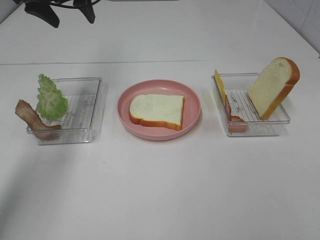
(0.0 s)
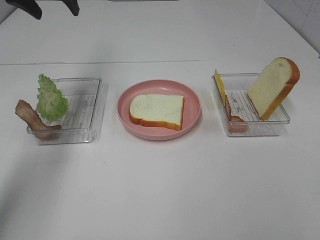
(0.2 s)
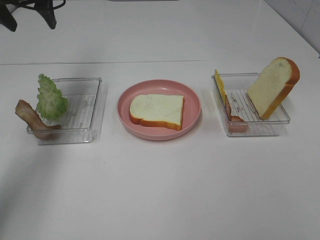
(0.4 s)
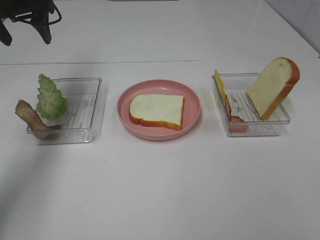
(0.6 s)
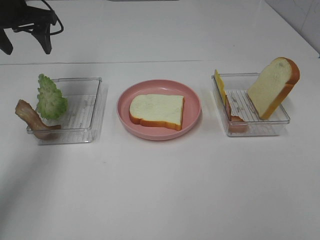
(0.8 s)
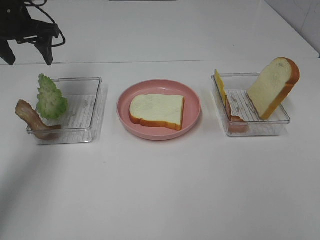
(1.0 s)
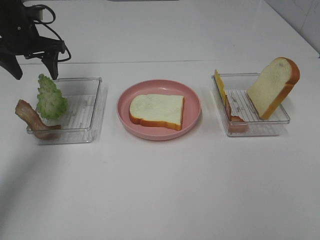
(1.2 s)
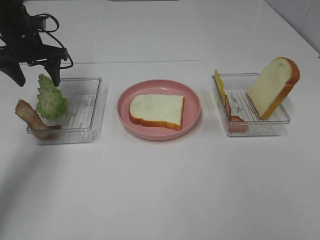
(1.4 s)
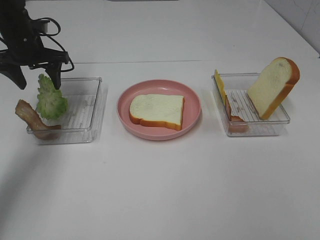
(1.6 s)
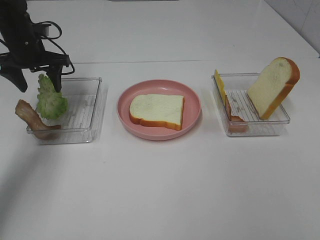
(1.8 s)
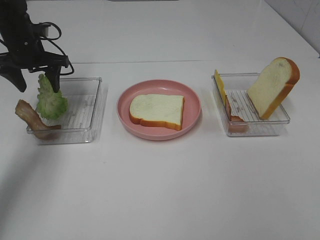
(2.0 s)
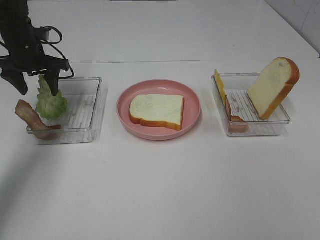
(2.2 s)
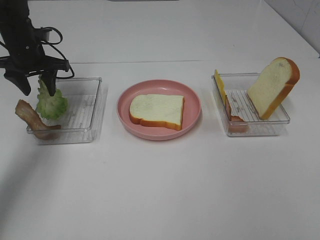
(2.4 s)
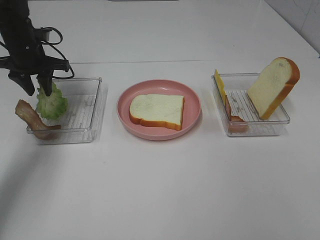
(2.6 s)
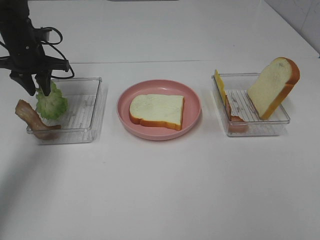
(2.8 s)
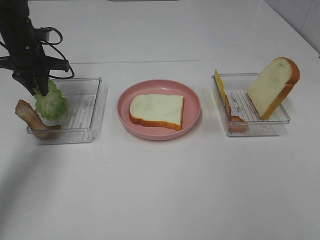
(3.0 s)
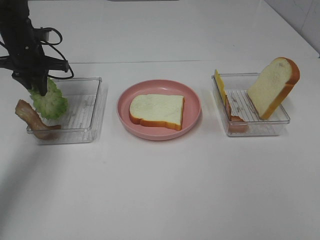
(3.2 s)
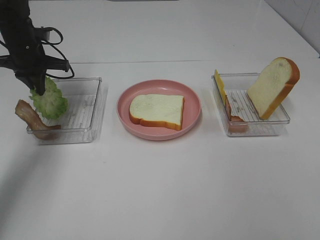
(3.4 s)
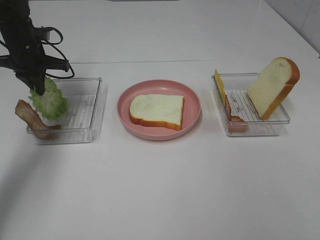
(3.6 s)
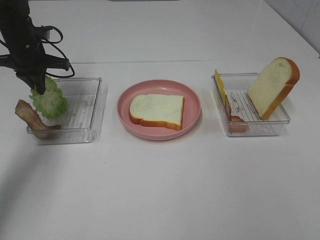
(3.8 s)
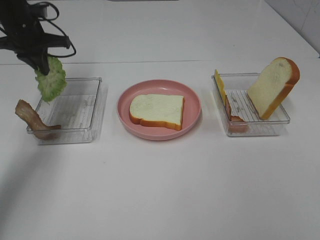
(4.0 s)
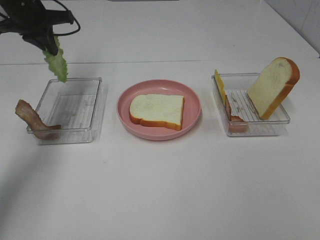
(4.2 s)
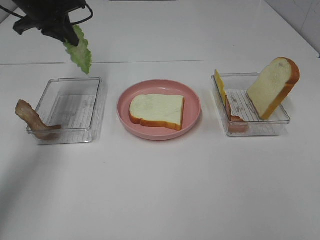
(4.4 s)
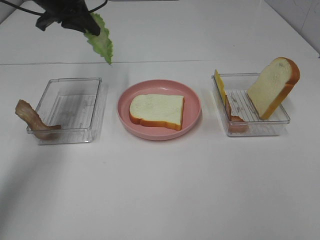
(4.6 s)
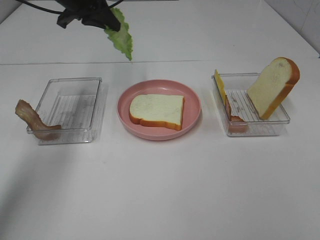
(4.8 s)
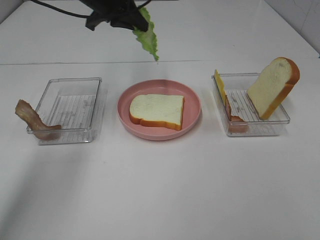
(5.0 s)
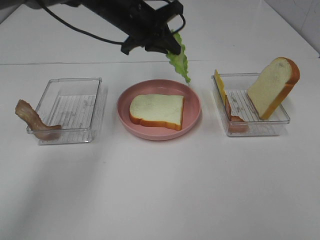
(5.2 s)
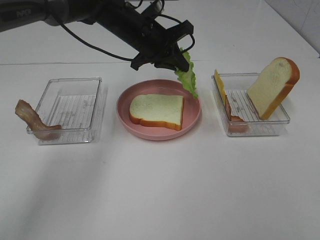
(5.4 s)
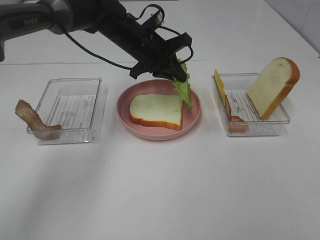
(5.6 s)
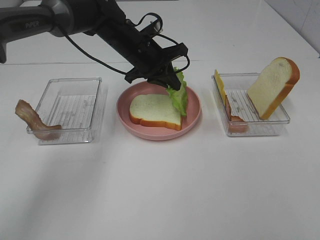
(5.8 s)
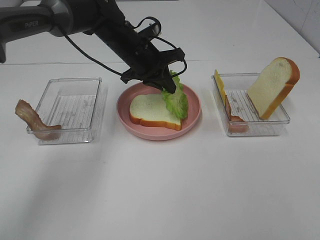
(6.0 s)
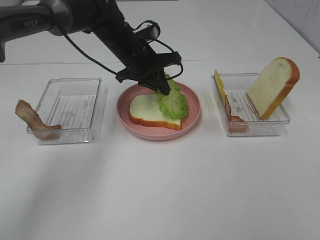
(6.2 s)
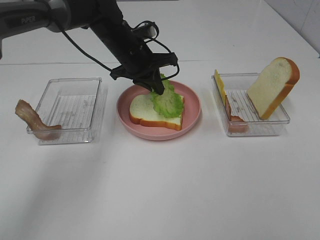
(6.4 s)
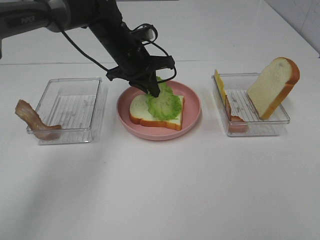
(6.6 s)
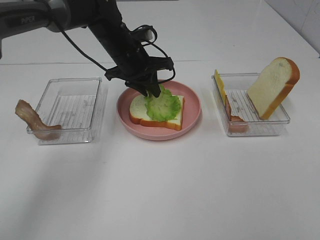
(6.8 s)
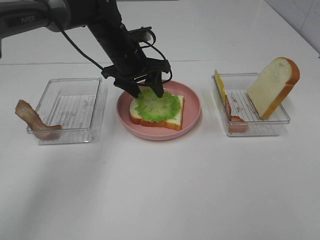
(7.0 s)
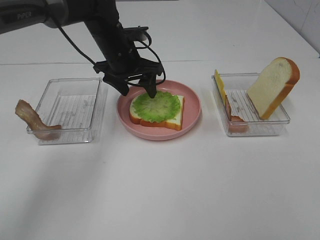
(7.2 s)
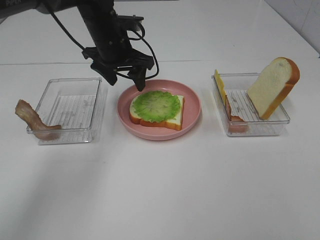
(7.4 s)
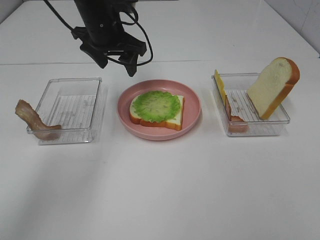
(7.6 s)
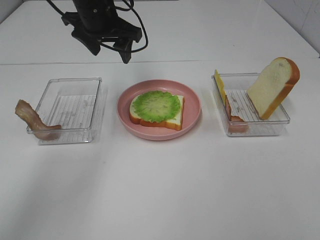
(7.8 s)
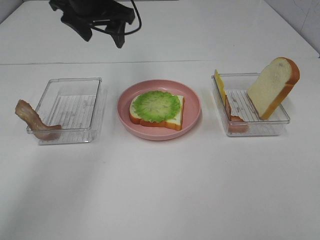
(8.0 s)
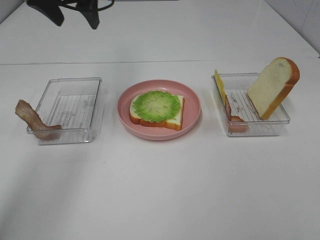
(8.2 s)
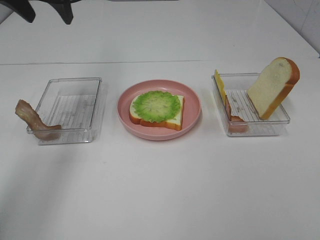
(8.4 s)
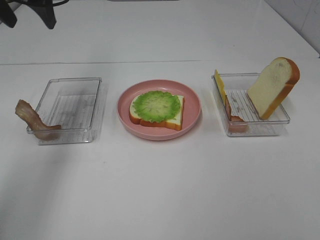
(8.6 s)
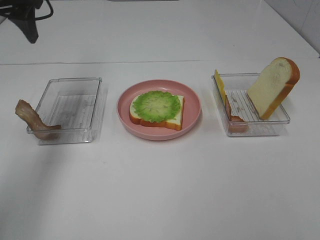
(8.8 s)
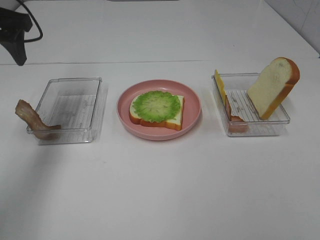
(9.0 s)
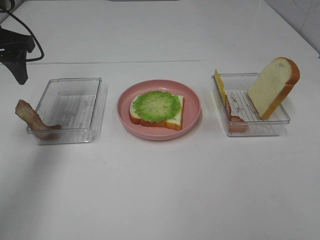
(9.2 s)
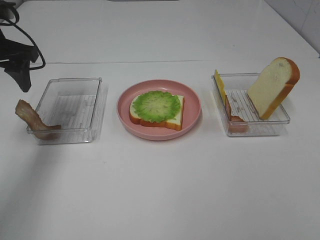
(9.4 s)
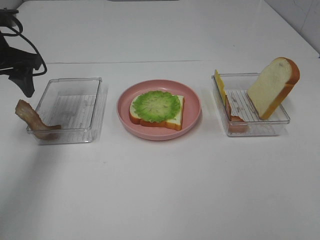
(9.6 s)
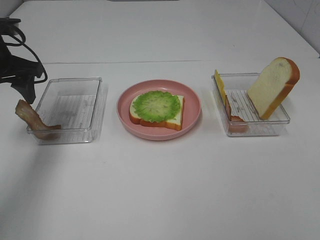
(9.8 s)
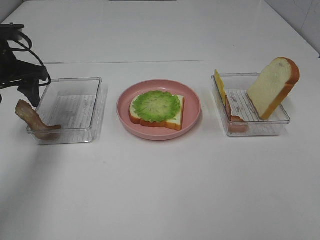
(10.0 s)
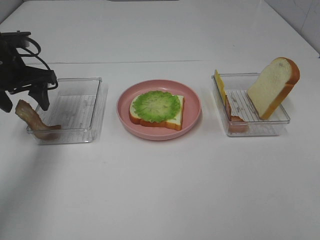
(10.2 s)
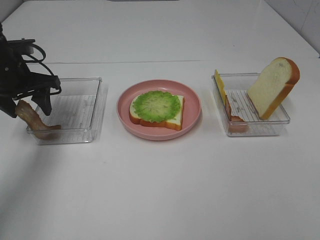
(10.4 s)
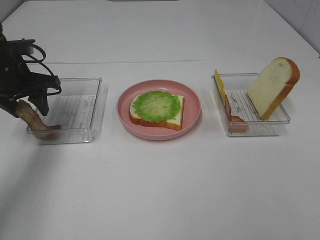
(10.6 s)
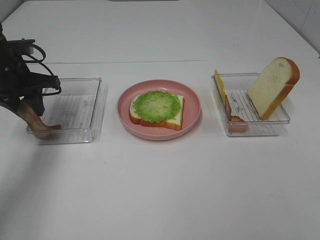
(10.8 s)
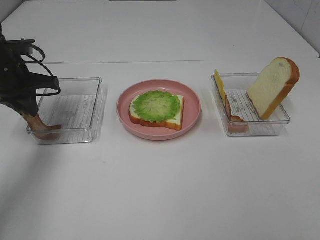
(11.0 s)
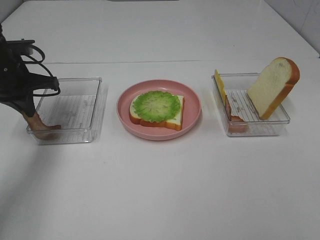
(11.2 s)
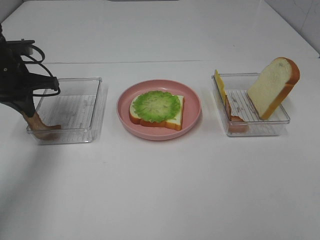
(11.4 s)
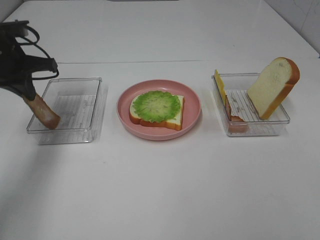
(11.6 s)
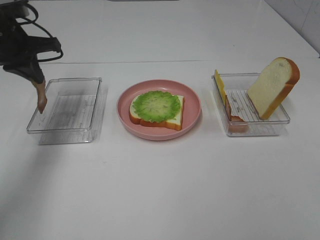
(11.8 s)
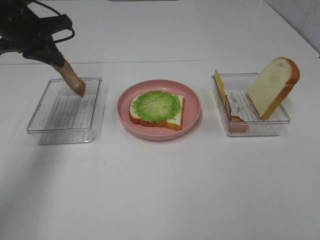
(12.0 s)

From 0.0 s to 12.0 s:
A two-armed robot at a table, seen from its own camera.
Task of the whole recording: Make sandwiches.
Step, from 0.0 s to 3.0 s: Left hand:grab the lettuce slice.
Step, from 3.2 s to 7.4 s: Left hand:place the lettuce slice on the bread slice.
Step, from 7.6 s to 11.4 s: Left hand:grab the bacon.
From 0.0 s to 1.6 s: The left gripper heads downward and to the left, covering about 15 cm.
From 1.6 s to 3.0 s: The left gripper closes.
From 3.0 s to 4.4 s: The left gripper goes roughly 10 cm upward.
From 4.4 s to 6.0 s: The left gripper is displaced to the right and downward by approximately 20 cm.
From 6.0 s to 7.6 s: The left gripper shifts approximately 10 cm upward and to the left, and opens.
From 7.6 s to 9.0 s: The left gripper heads to the left and backward, covering roughly 20 cm.
From 9.0 s to 10.4 s: The left gripper is displaced downward by some 10 cm.
From 10.4 s to 12.0 s: The left gripper shifts about 10 cm upward, and closes its fingers.

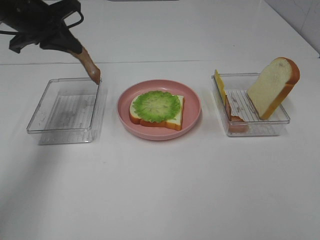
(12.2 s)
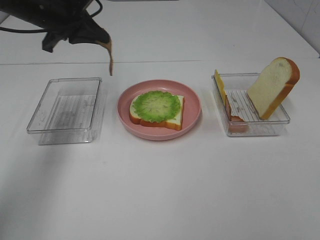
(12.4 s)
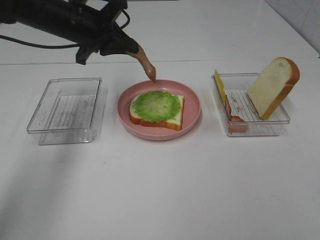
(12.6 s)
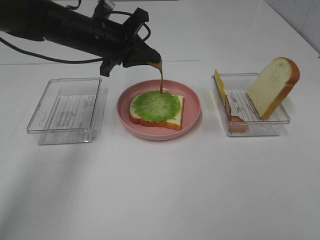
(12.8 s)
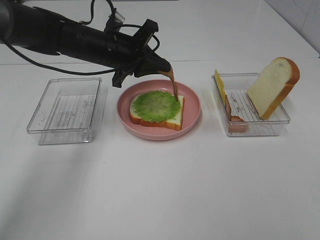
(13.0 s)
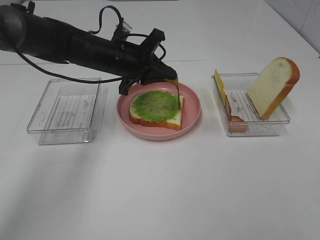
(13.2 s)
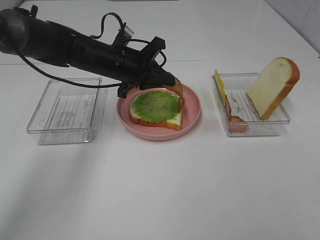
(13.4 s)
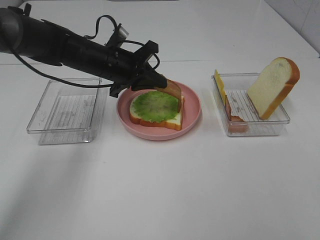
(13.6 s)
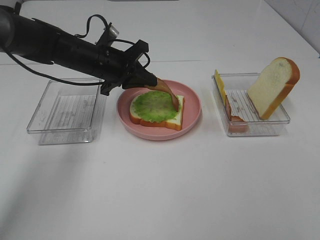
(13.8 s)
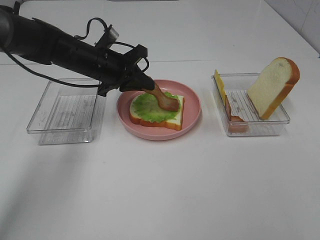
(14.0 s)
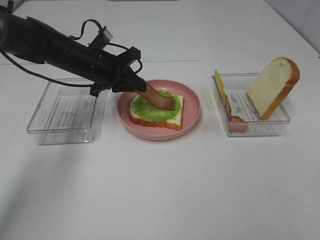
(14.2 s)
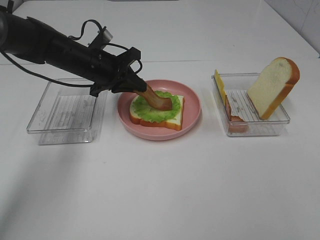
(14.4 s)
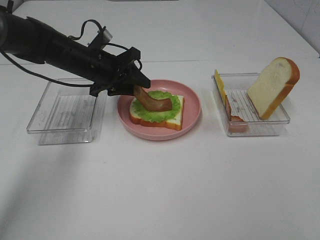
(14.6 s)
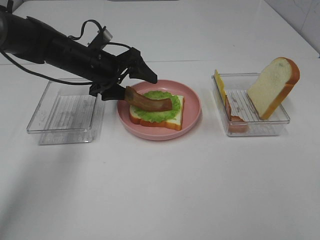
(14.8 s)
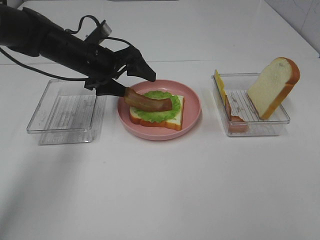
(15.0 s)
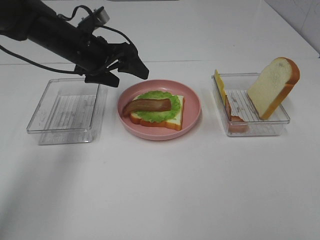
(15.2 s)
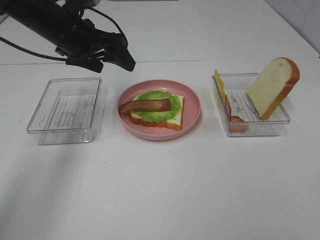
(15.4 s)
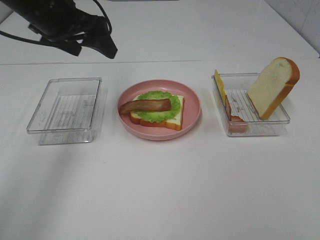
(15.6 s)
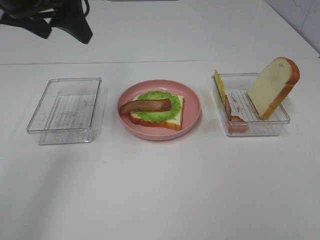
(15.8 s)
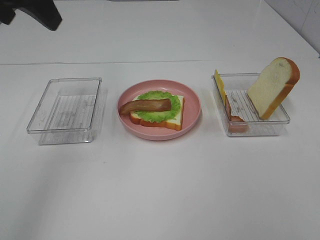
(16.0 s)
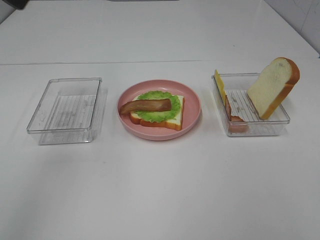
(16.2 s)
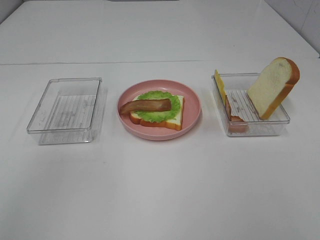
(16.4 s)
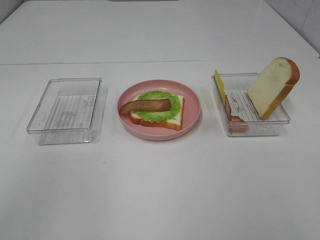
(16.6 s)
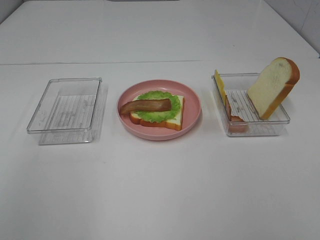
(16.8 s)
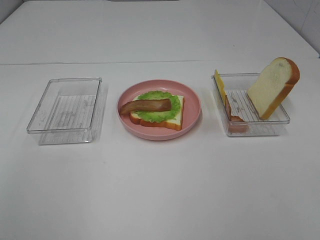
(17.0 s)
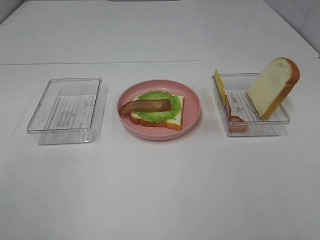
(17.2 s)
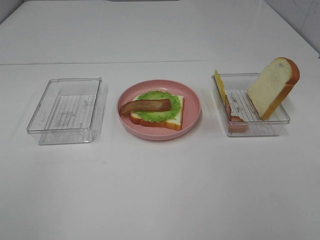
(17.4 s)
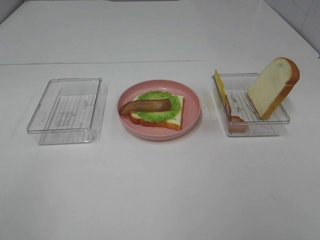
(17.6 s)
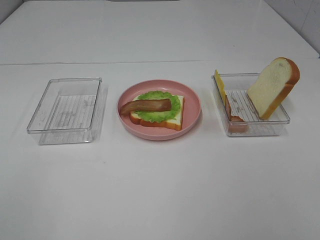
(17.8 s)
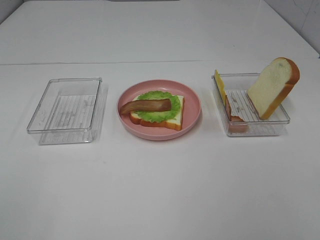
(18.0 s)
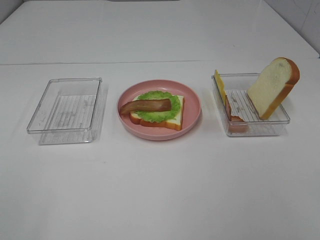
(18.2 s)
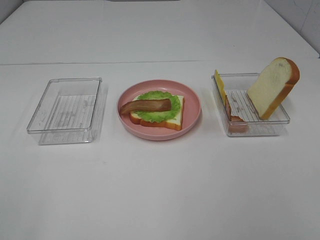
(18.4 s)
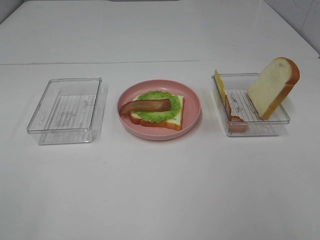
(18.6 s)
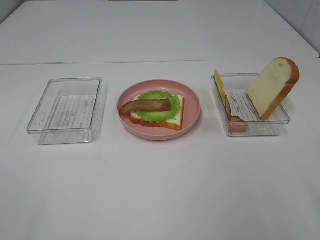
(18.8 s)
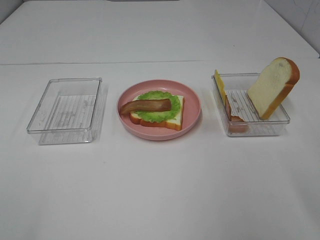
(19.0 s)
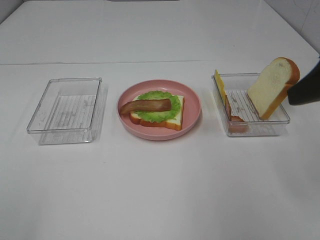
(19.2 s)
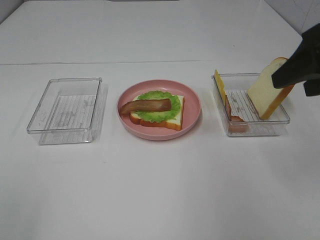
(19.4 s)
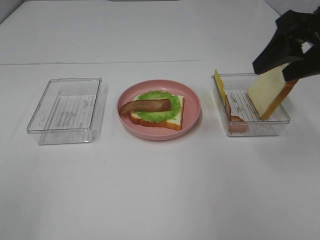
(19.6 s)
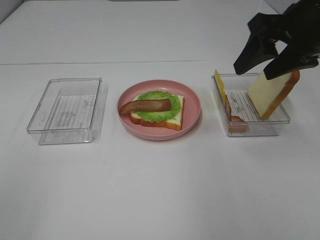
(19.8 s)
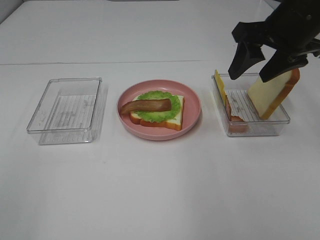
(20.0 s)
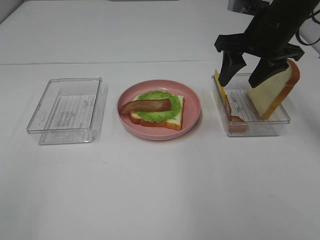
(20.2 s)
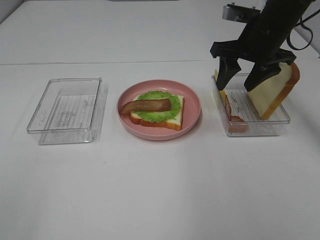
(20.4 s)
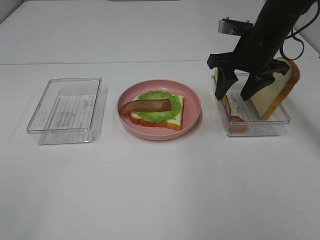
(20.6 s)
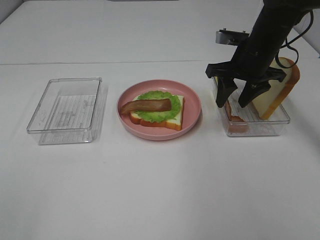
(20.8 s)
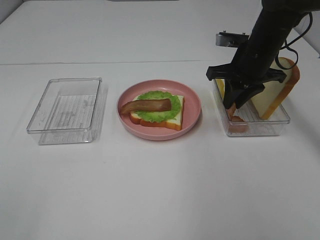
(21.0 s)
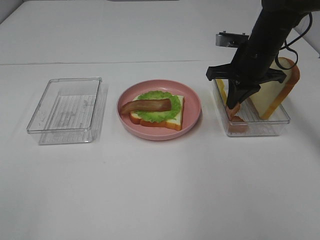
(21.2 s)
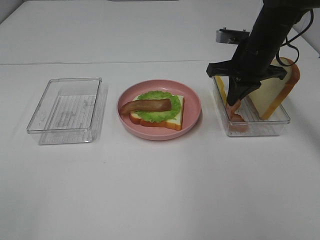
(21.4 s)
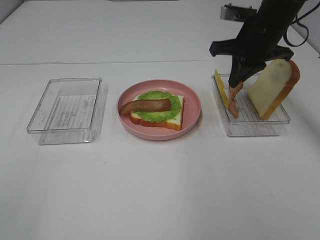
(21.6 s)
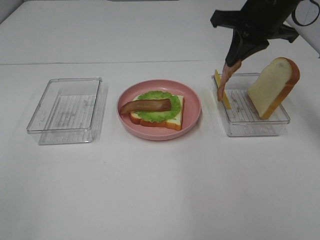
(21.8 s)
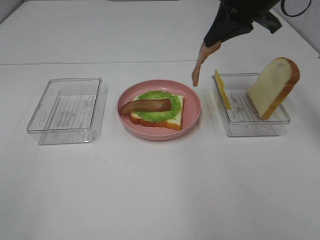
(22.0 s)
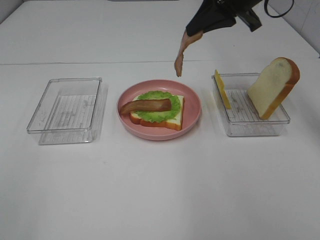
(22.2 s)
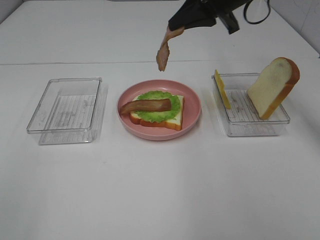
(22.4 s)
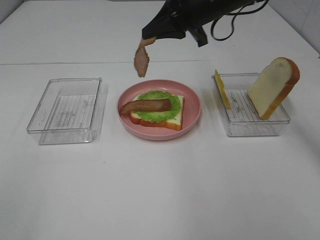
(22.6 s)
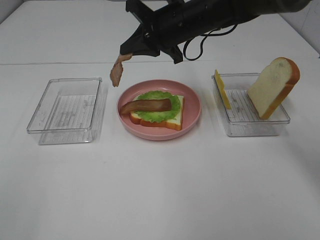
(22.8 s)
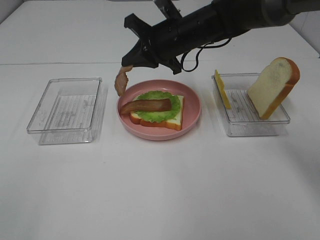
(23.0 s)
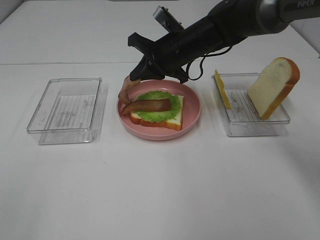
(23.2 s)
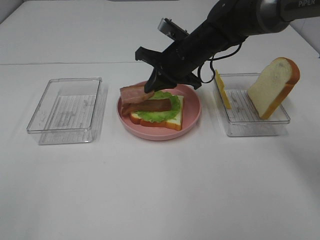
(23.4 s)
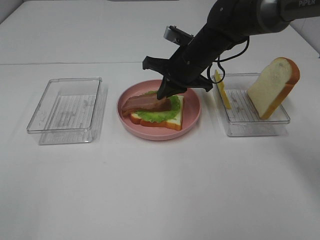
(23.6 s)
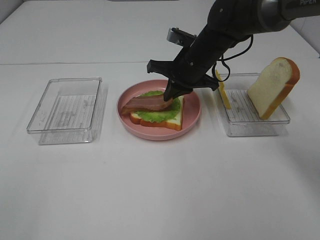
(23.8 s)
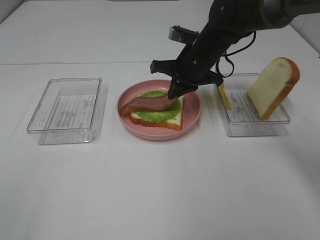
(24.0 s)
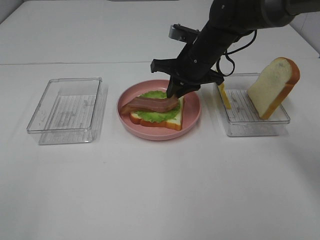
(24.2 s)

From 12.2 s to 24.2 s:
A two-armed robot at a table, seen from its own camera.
Task of the whole recording: Make sandwiches.
Step, from 12.2 s to 15.4 s: Left hand:place bacon on lettuce slice.
Step, from 15.6 s to 21.4 s: Right hand:grab the bacon.
From 12.2 s to 13.8 s: The left gripper is displaced downward and to the right by some 15 cm.
From 13.8 s to 15.2 s: The left gripper opens its fingers.
From 15.2 s to 16.6 s: The left gripper shifts roughly 35 cm upward and backward.
From 18.2 s to 19.8 s: The right gripper heads forward, covering roughly 30 cm.
From 19.8 s to 21.2 s: The right gripper travels downward and forward by some 15 cm, and closes.
From 21.2 s to 22.6 s: The right gripper is displaced to the left and upward by about 10 cm.
From 22.6 s to 24.2 s: The right gripper moves downward, some 10 cm, and opens up.
